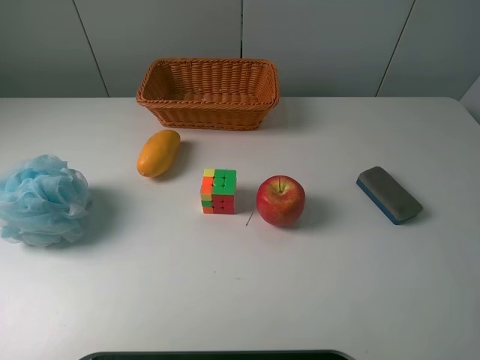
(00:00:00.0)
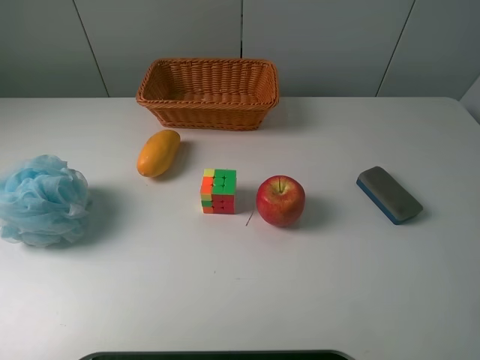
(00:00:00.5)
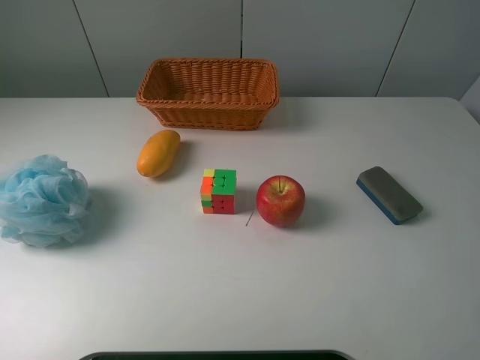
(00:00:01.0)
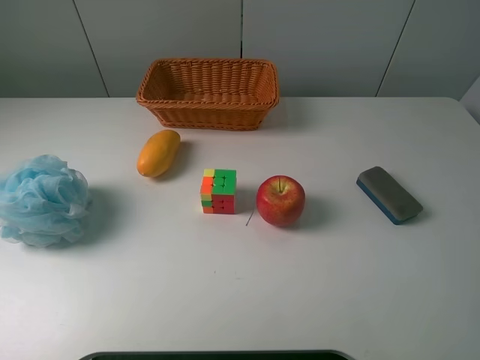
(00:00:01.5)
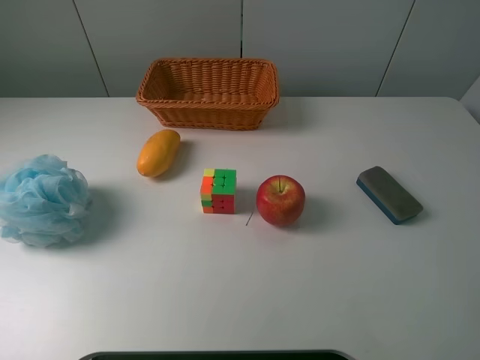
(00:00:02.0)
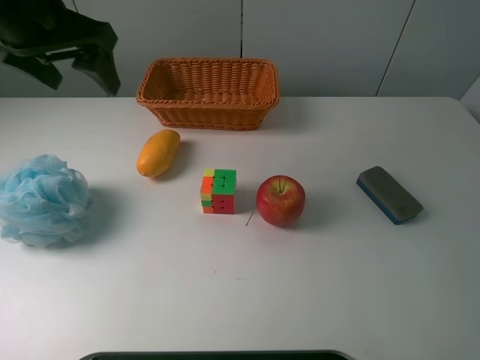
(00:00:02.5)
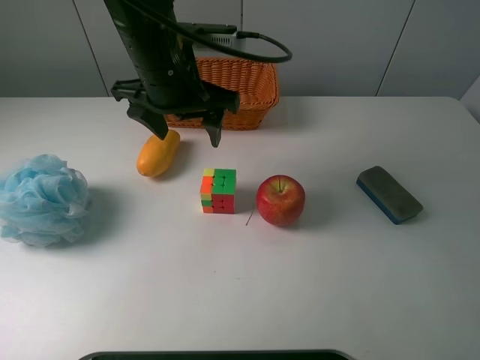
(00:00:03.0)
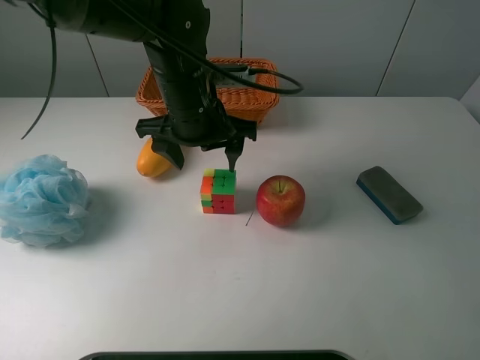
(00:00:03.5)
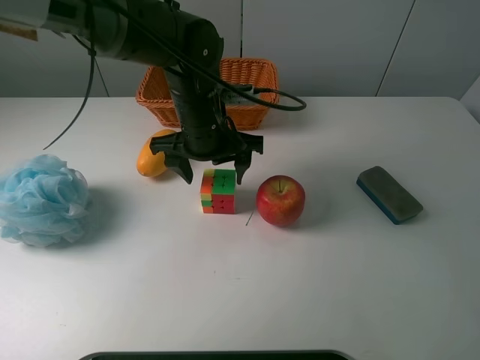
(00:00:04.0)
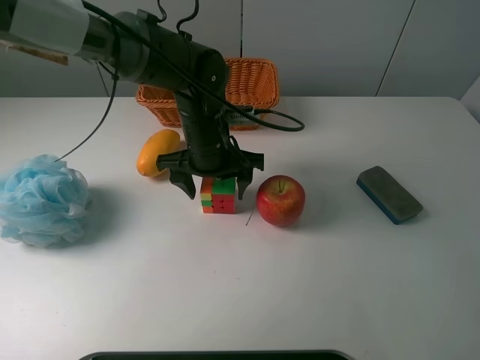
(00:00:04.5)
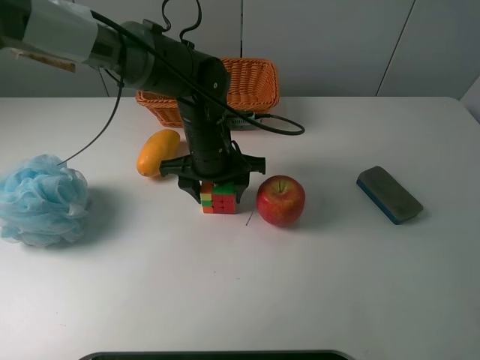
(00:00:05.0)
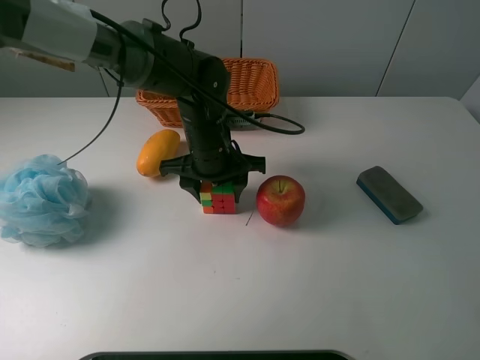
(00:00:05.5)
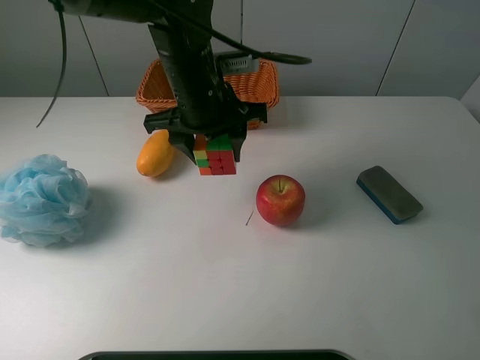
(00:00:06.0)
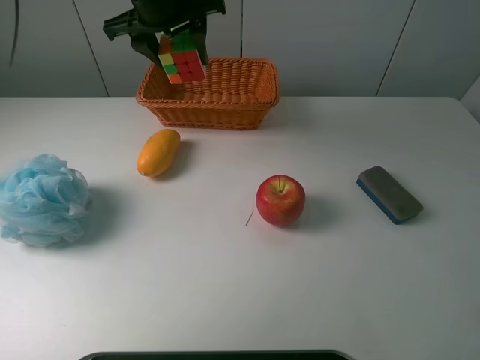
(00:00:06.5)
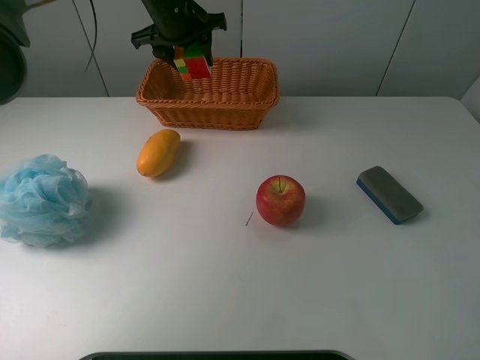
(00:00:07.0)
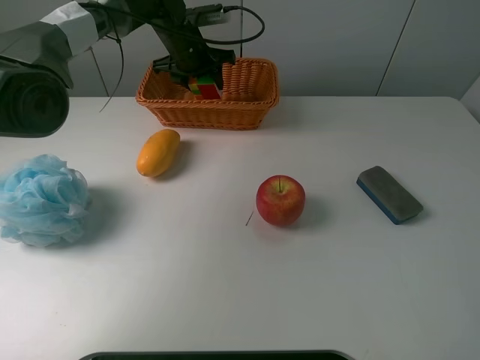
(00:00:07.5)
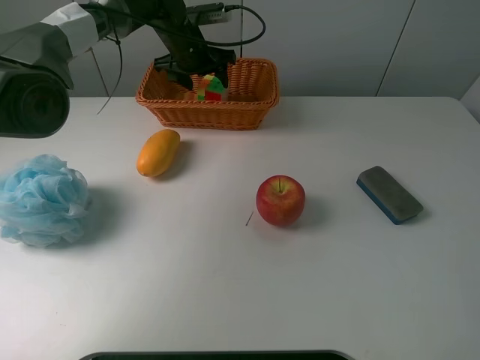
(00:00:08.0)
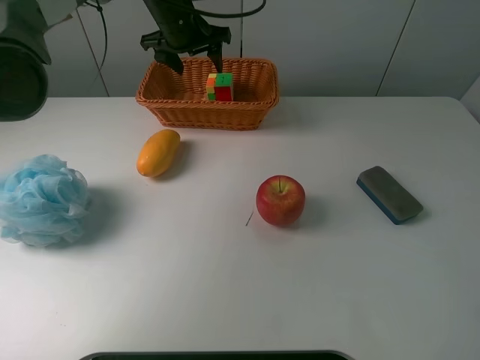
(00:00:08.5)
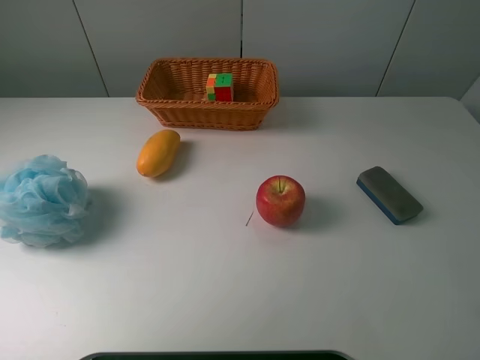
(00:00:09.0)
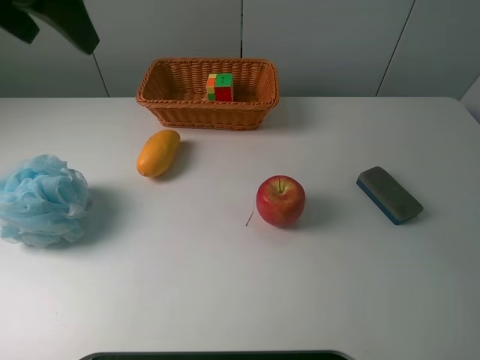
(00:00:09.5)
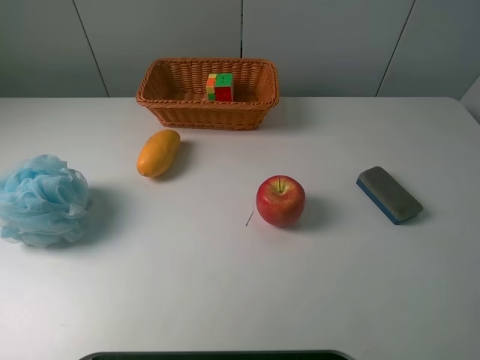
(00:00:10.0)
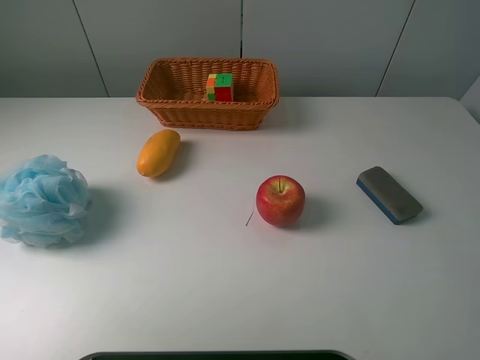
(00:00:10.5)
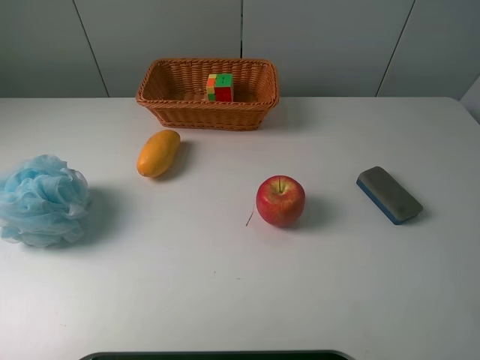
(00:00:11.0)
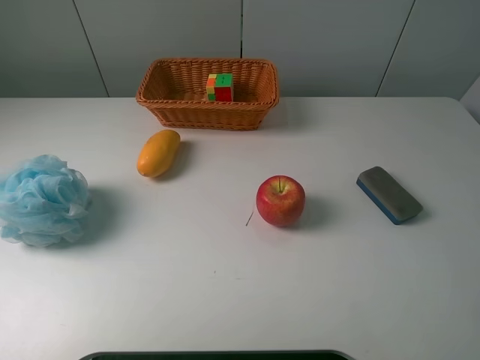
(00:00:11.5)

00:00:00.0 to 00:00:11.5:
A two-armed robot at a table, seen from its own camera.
Task of the whole recording: use a picker to grab the item closest to the apple and place it in the basket.
Step, 00:00:00.0 to 00:00:05.0: Grasp the Rubik's Cube with the left gripper.
Step, 00:00:05.5 to 00:00:08.5: Place the Rubik's Cube into the basket with the left gripper.
00:00:02.0 to 00:00:04.0: The left gripper moves to the right, downward and forward, roughly 40 cm.
00:00:04.0 to 00:00:06.0: The left gripper moves upward, about 5 cm, and closes.
00:00:06.0 to 00:00:07.5: The left gripper heads forward, covering about 20 cm.
00:00:07.5 to 00:00:09.5: The left gripper moves backward, upward and to the left, about 35 cm, and opens up.
00:00:09.5 to 00:00:11.5: The left gripper moves backward and to the left, some 25 cm.
